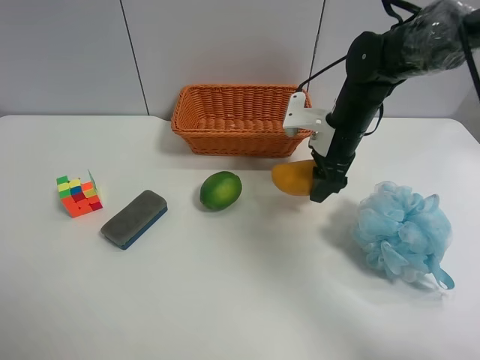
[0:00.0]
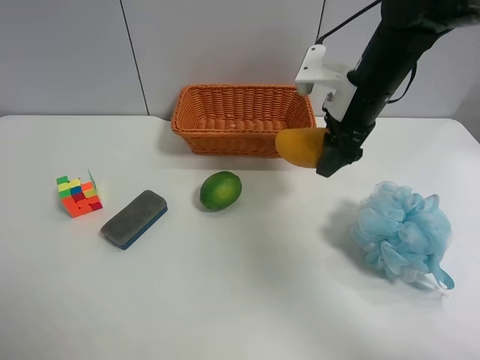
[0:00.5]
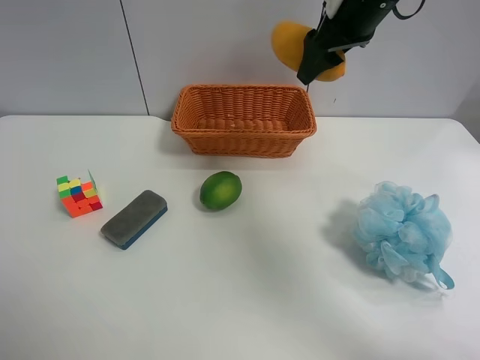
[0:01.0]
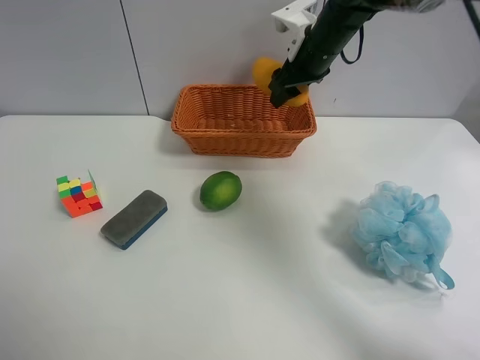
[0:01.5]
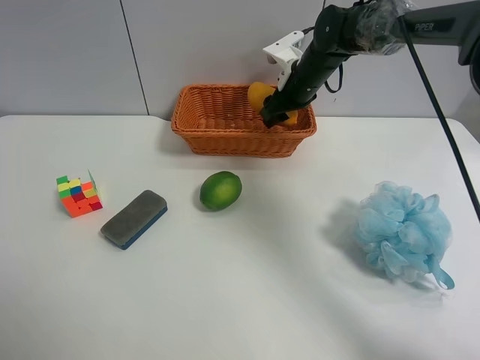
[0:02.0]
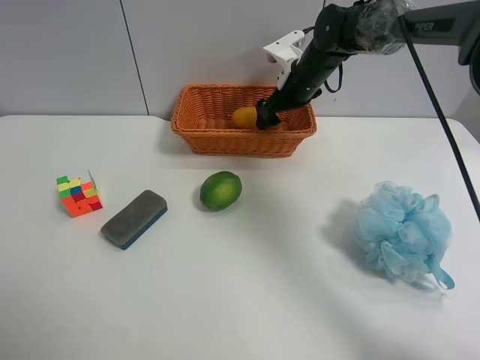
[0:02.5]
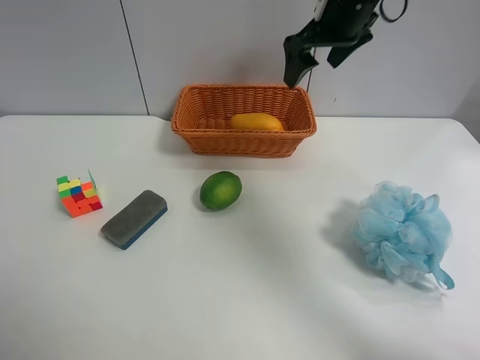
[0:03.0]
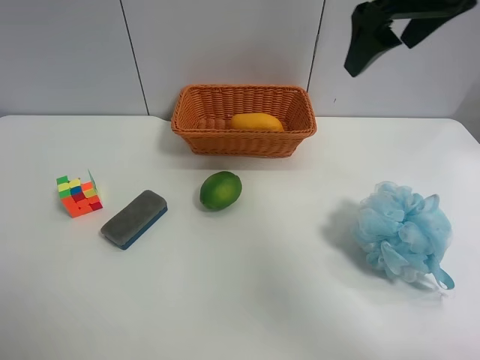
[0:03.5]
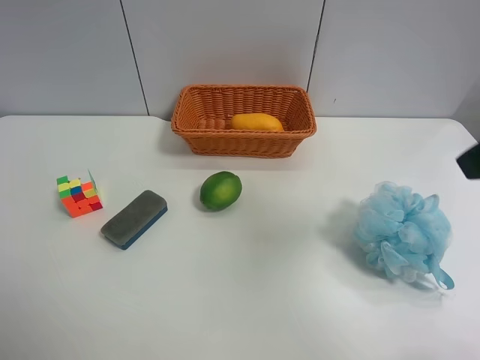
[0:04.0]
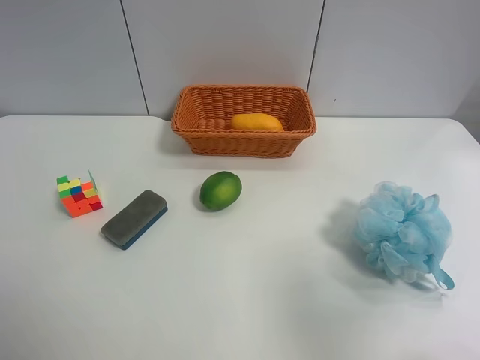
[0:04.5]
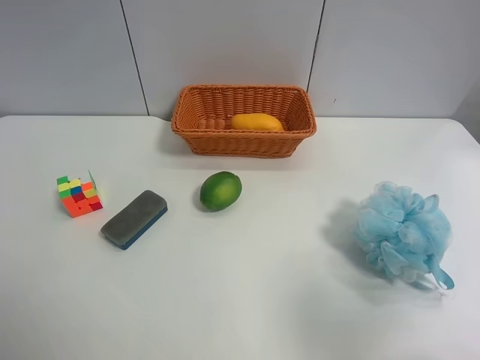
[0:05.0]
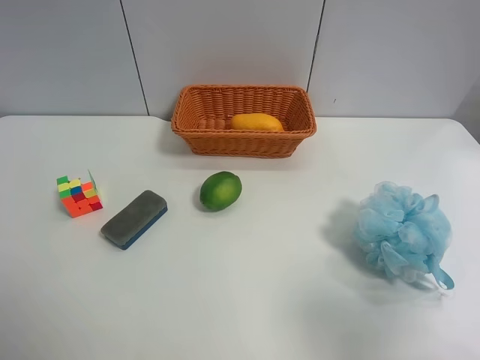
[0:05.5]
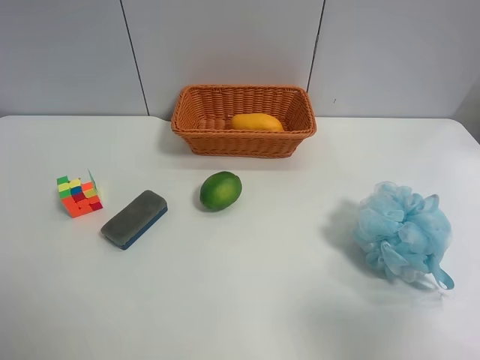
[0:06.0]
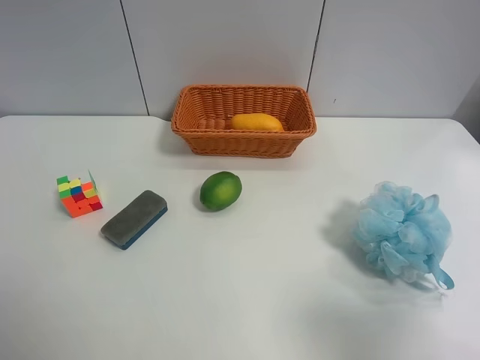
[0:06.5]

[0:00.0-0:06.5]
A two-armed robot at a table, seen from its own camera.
Task of the whole recording: Randomly grab green lemon or mangoes from the table and put them in a basket.
Step, 0:00.0 to 0:03.0: Place the mango into the basket with the right gripper.
0:00.0 to 0:02.0: The right gripper travels forward by roughly 10 cm, and moves some 15 cm upward and comes back.
0:02.0 to 0:04.5: The right gripper shifts roughly 50 cm backward, and opens its fingers.
